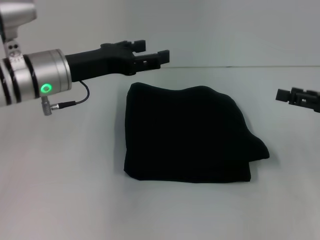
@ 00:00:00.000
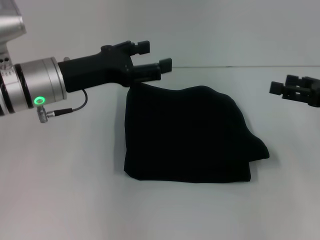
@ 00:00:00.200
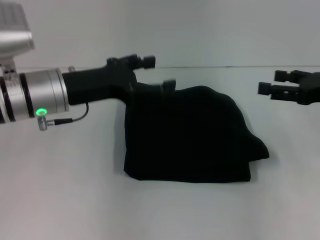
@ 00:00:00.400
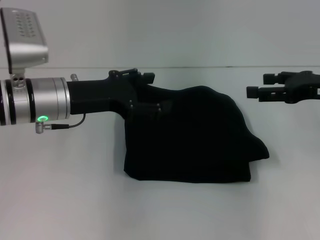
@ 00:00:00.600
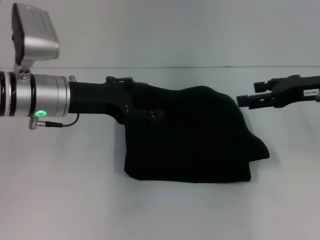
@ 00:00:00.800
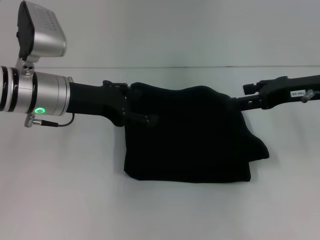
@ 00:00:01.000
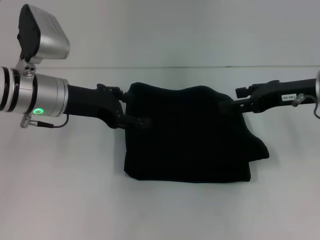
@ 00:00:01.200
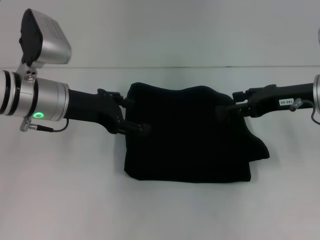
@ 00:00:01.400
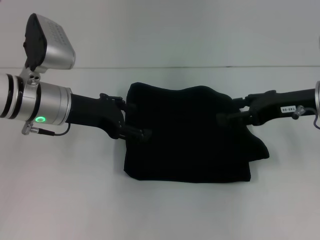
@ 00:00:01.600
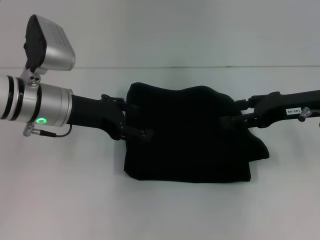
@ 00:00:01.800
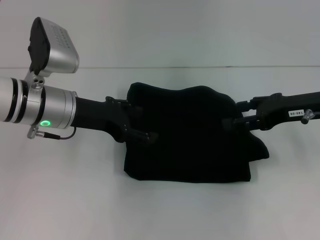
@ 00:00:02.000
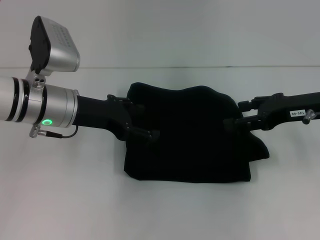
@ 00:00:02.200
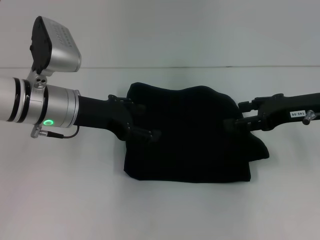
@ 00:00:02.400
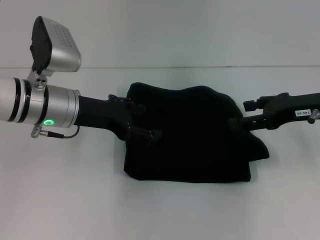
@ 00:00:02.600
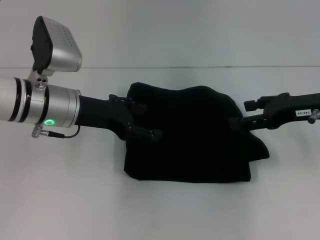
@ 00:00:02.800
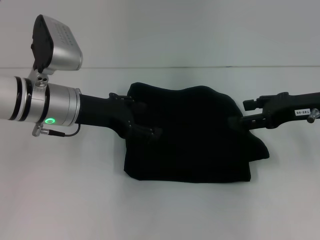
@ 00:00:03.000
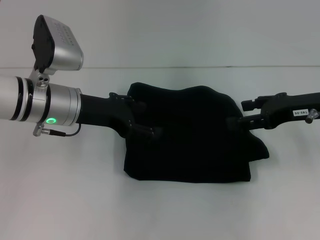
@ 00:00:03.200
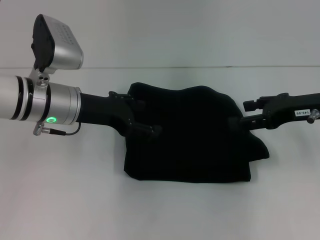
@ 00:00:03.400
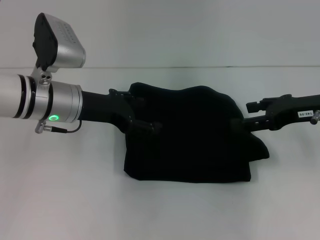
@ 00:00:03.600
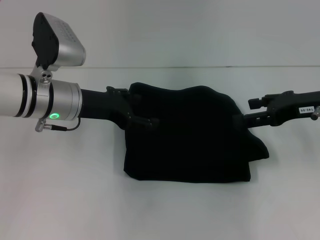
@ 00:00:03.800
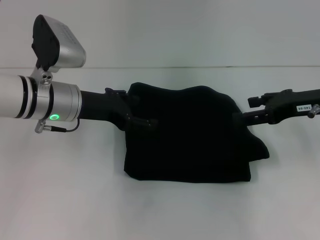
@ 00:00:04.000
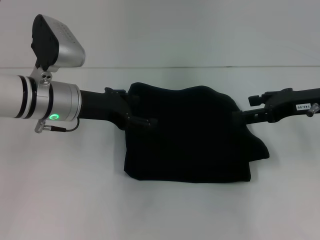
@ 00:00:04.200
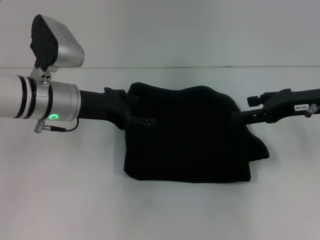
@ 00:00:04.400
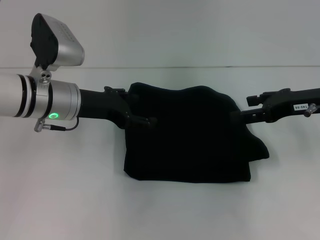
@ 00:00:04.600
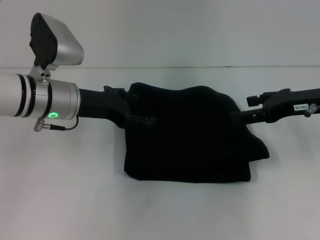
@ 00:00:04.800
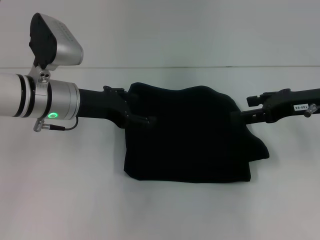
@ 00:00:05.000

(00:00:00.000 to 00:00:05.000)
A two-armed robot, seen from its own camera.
00:00:00.000 - 00:00:01.600: The right gripper goes about 10 cm to the left.
00:00:01.600 - 00:00:05.000: The grippers stay close to where they were, moving slightly.
